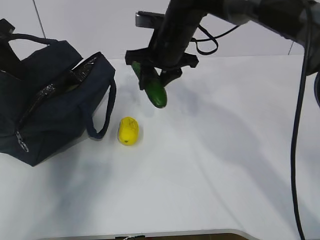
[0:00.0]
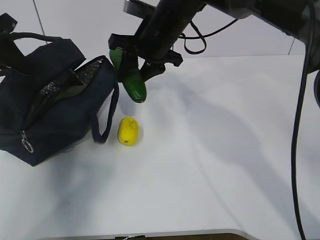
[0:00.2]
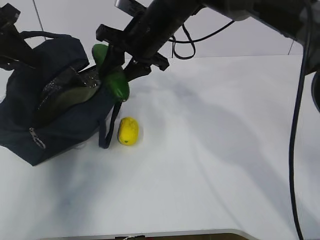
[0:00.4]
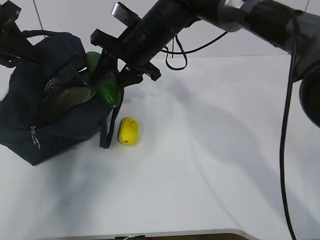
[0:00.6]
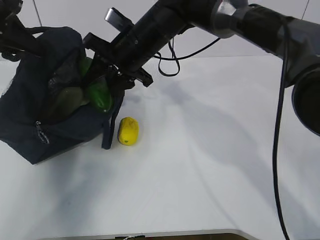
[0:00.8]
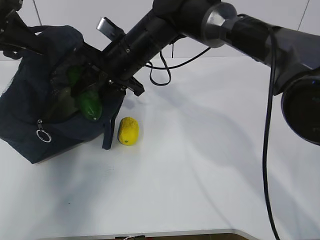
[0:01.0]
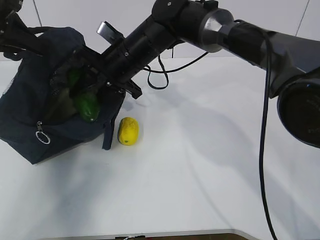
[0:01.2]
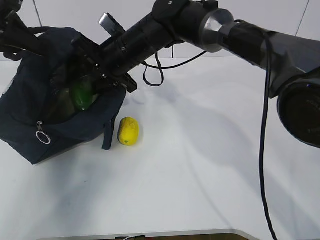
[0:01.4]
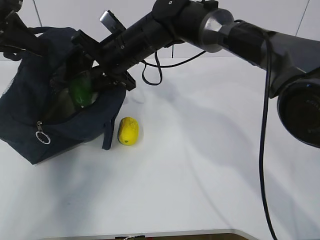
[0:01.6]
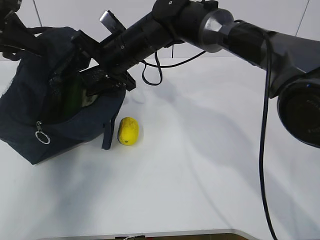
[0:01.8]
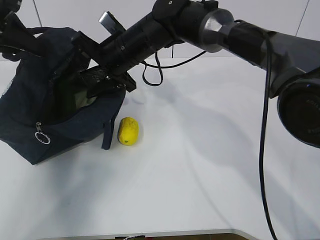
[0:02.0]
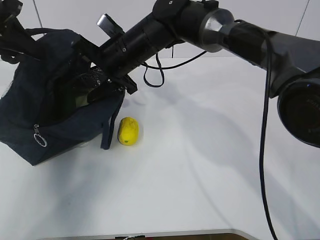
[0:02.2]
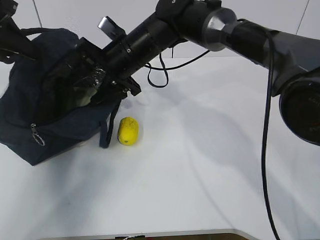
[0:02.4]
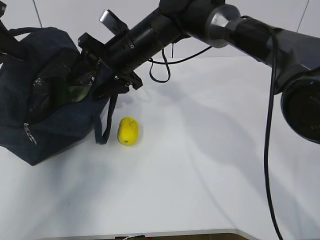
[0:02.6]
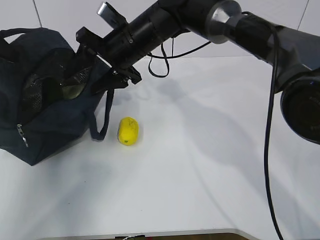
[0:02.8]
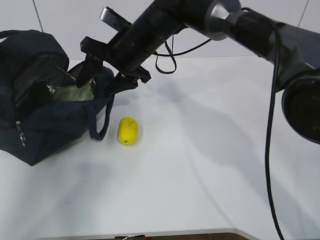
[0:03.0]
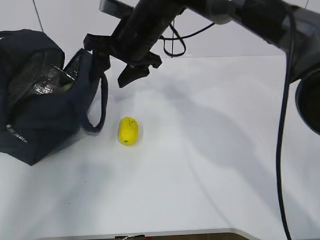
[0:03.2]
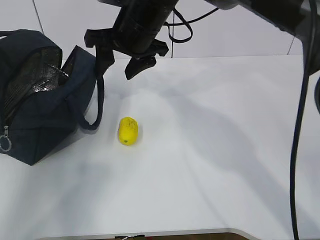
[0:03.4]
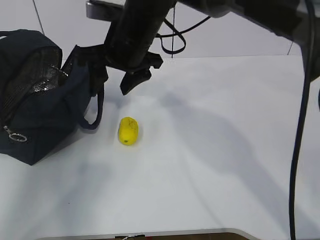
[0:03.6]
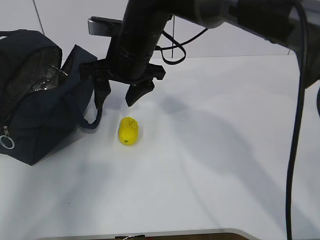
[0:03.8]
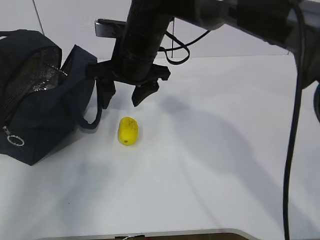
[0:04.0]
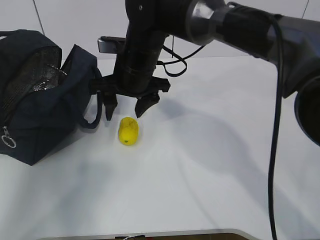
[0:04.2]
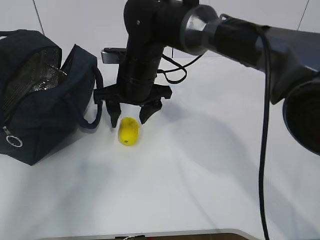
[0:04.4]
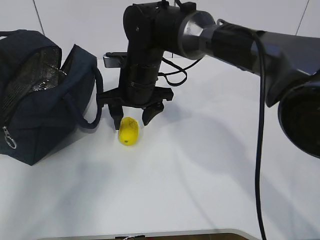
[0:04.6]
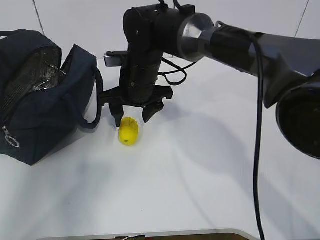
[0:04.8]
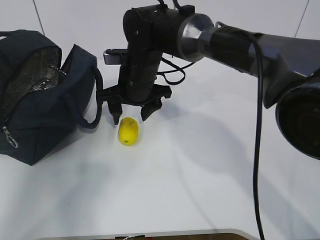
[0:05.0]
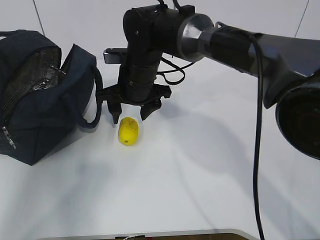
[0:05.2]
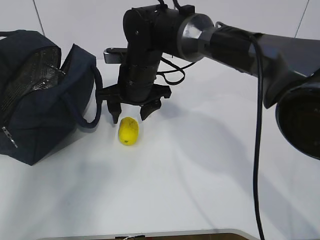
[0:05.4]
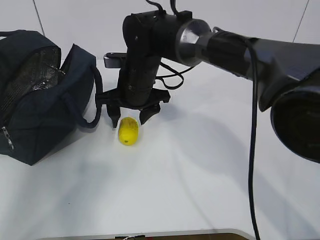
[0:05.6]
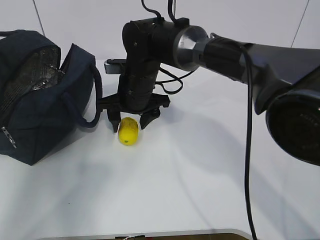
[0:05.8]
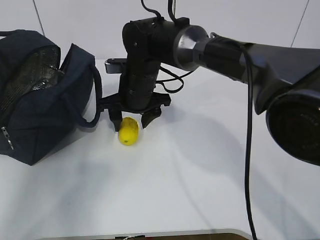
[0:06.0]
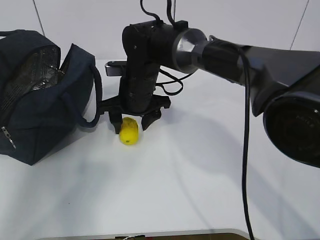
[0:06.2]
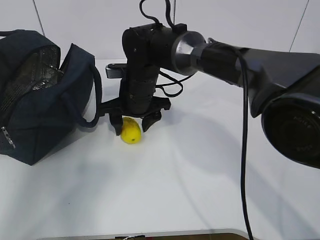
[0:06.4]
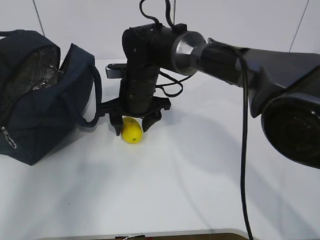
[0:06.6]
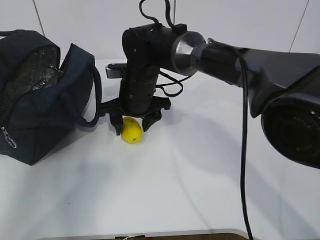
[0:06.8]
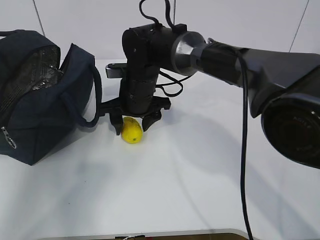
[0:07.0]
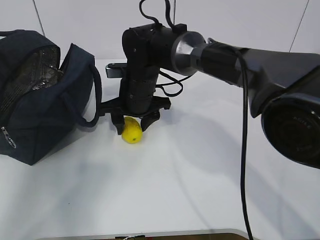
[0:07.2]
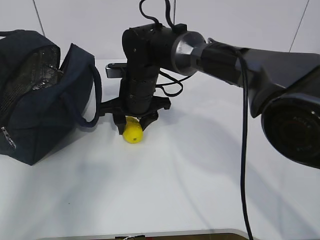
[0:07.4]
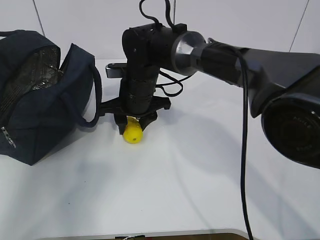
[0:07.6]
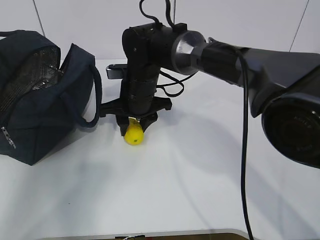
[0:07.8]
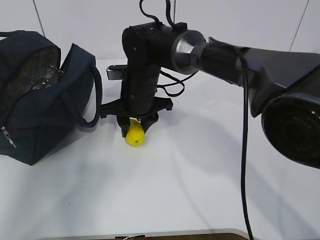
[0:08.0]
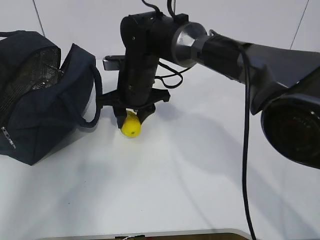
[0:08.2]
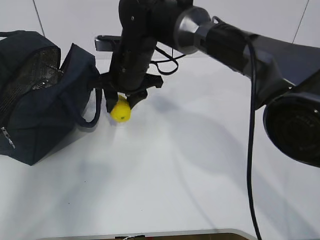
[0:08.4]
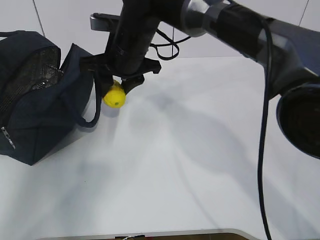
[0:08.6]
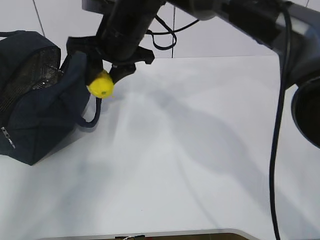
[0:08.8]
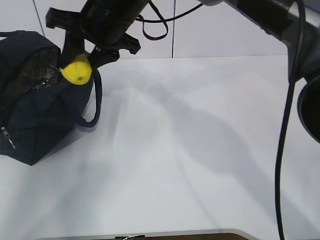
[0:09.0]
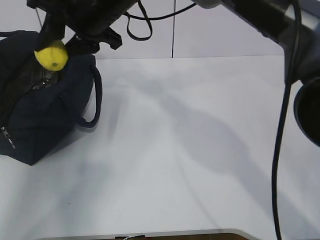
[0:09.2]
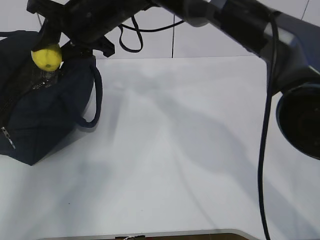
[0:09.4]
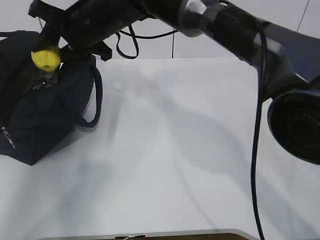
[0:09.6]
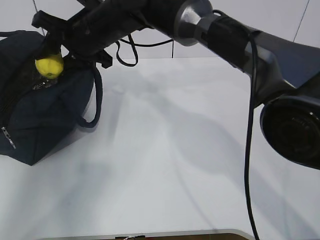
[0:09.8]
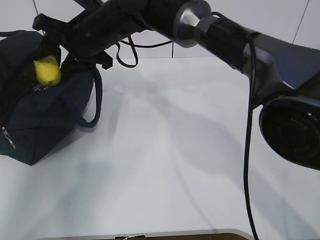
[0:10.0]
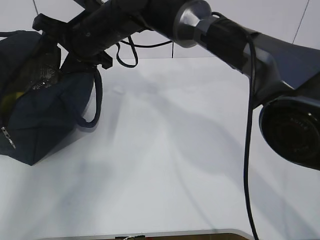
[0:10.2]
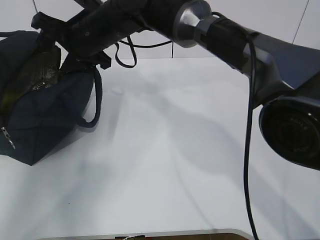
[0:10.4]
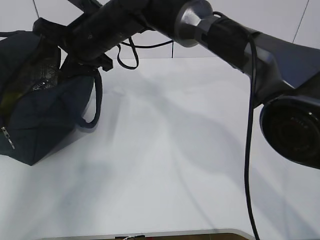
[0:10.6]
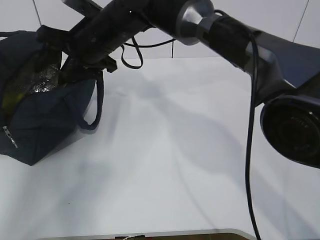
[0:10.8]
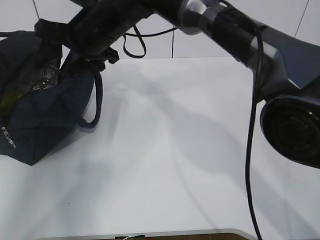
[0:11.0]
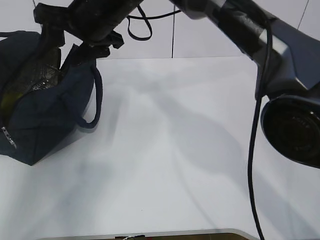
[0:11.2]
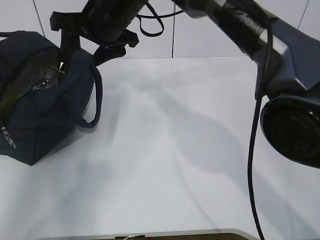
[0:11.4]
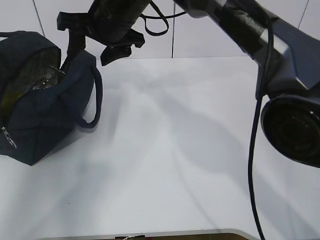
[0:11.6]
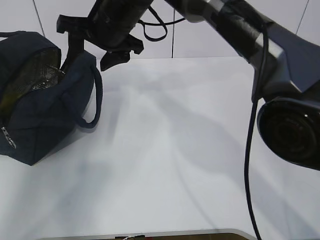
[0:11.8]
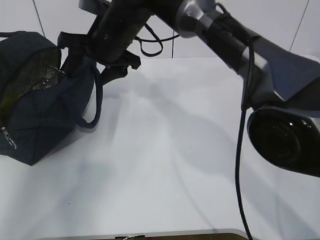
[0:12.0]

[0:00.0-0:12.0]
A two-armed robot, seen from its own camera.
Step, 0:01.6 to 0:03.6: Secure the lunch bag with your left hand.
Step, 0:03.8 to 0:06.6: Grab the lunch bag with your right hand.
Step, 0:06.8 to 0:10.0: Move the lunch bag to the right.
0:00.0 to 0:01.6: The right gripper is displaced to the left by roughly 10 cm.
0:01.6 to 0:03.0: The left gripper is displaced to the left by some 5 cm.
0:04.4 to 0:06.0: The grippers make only small movements.
0:06.0 to 0:07.6: Both grippers stay about where they are.
0:07.6 to 0:09.0: The right gripper goes about 15 cm upward.
0:09.0 to 0:10.4: The right gripper shifts by about 5 cm, and opens up.

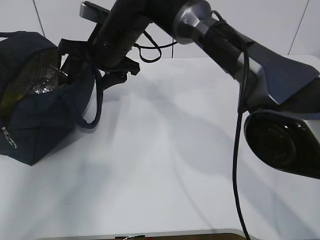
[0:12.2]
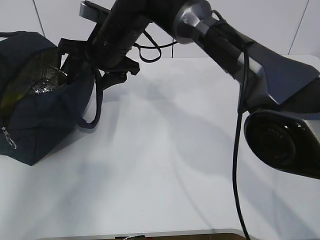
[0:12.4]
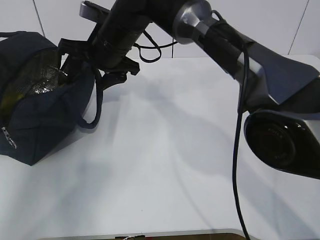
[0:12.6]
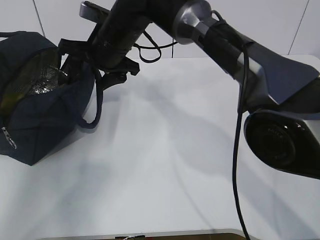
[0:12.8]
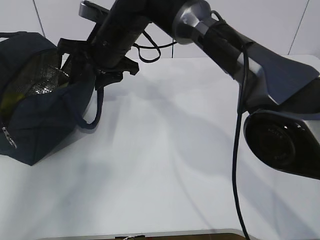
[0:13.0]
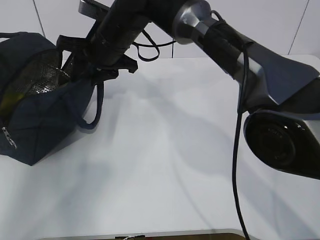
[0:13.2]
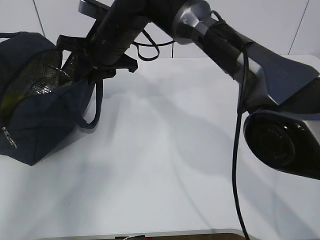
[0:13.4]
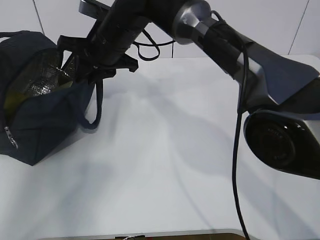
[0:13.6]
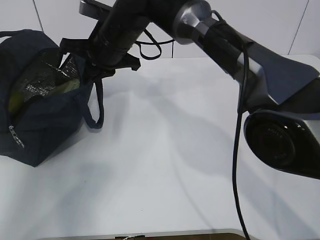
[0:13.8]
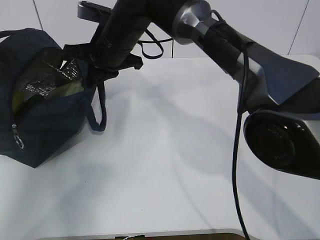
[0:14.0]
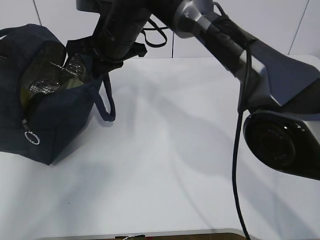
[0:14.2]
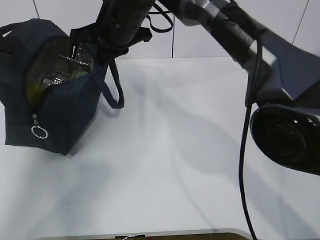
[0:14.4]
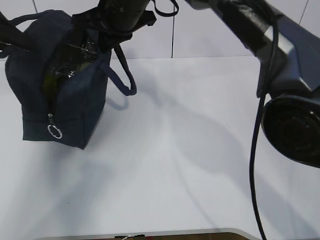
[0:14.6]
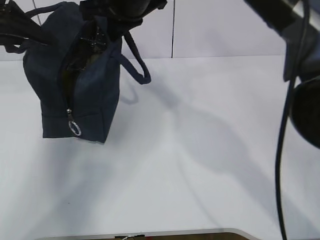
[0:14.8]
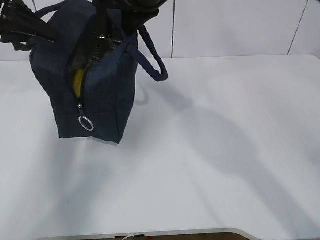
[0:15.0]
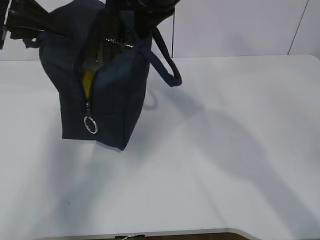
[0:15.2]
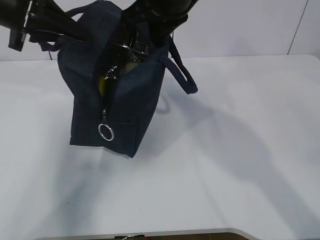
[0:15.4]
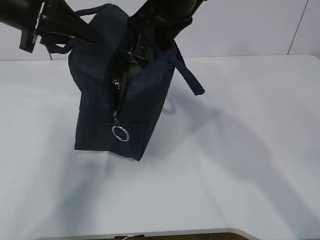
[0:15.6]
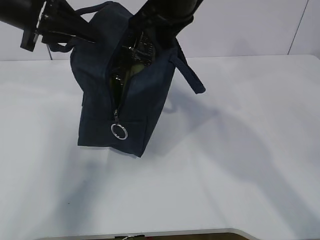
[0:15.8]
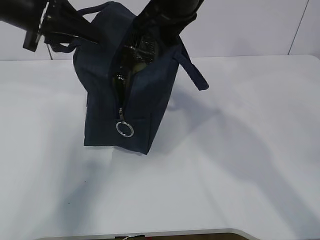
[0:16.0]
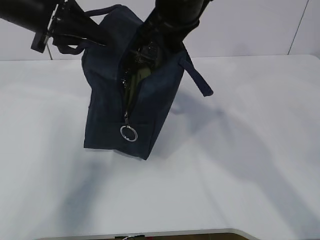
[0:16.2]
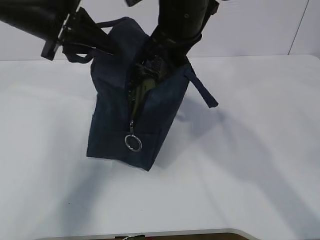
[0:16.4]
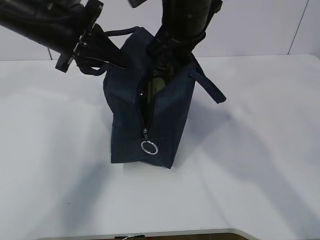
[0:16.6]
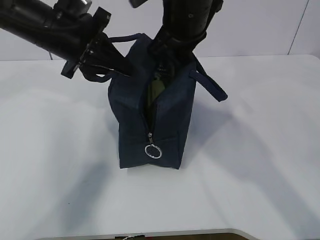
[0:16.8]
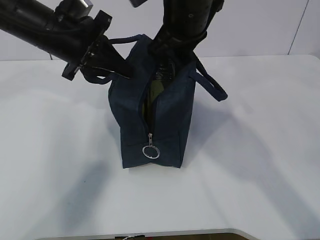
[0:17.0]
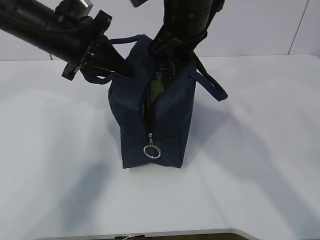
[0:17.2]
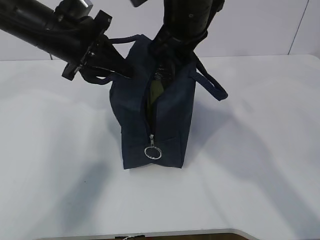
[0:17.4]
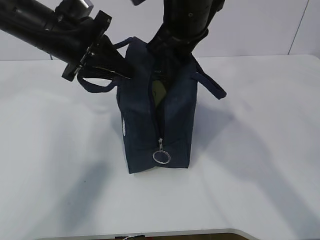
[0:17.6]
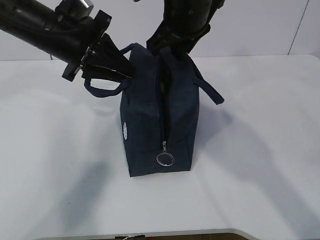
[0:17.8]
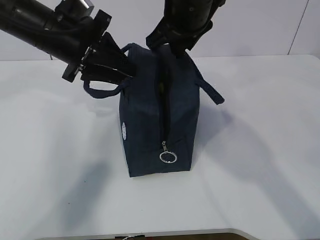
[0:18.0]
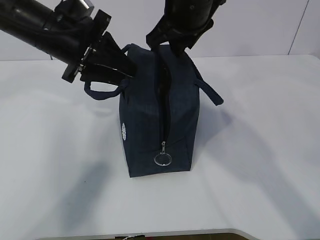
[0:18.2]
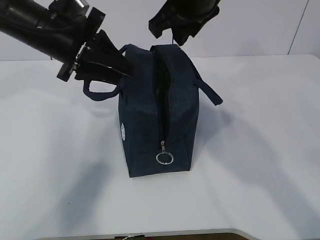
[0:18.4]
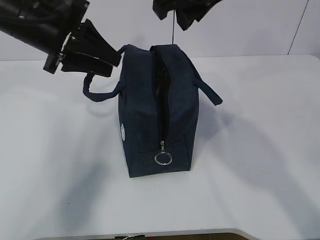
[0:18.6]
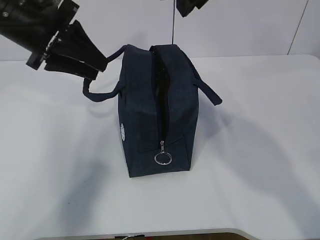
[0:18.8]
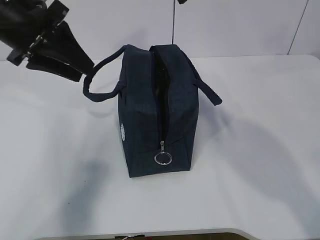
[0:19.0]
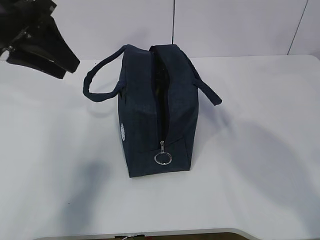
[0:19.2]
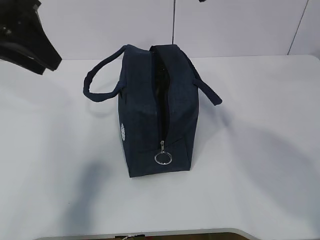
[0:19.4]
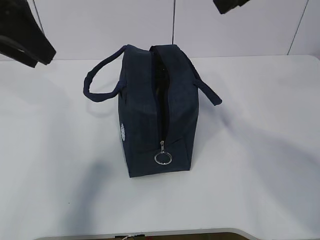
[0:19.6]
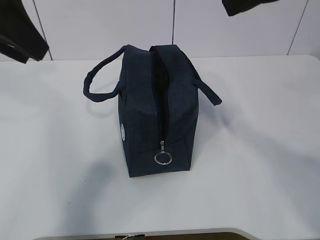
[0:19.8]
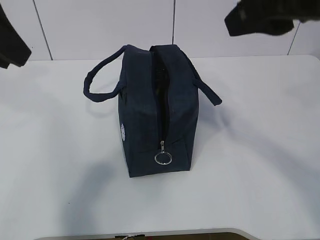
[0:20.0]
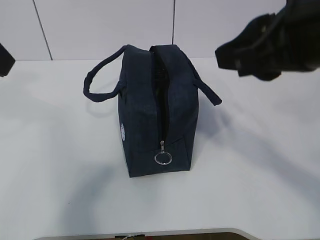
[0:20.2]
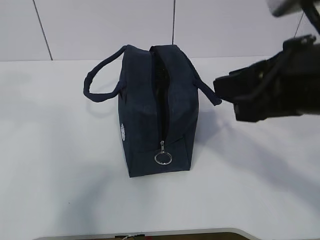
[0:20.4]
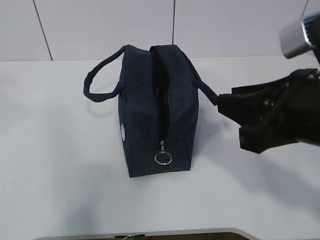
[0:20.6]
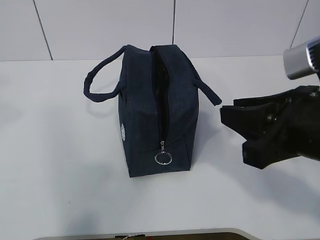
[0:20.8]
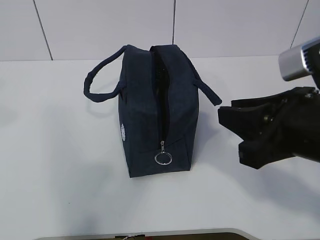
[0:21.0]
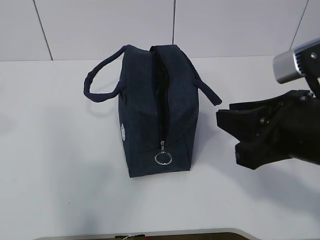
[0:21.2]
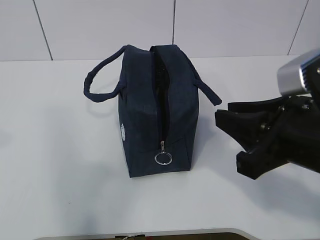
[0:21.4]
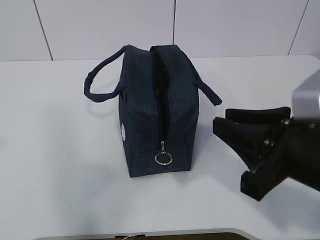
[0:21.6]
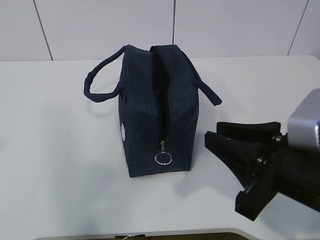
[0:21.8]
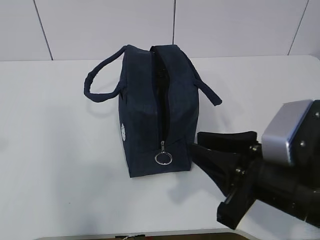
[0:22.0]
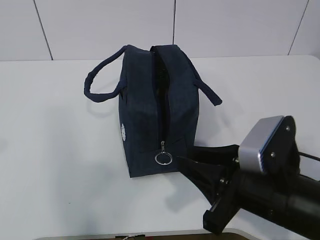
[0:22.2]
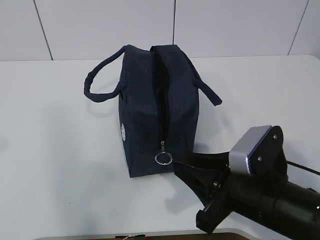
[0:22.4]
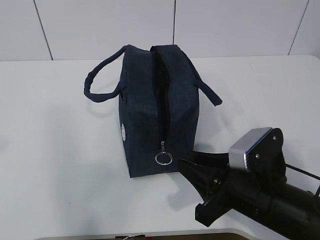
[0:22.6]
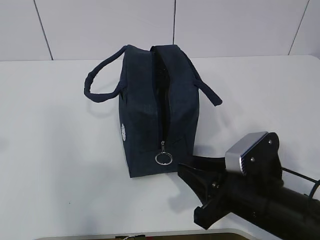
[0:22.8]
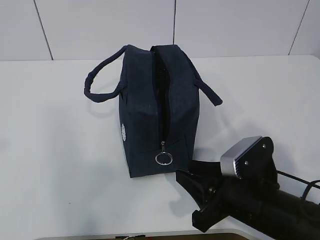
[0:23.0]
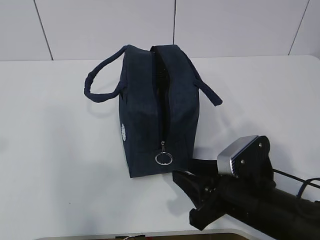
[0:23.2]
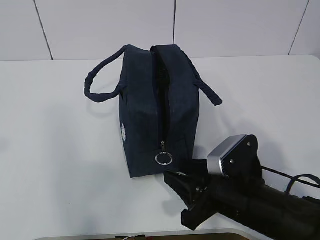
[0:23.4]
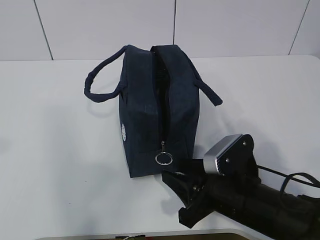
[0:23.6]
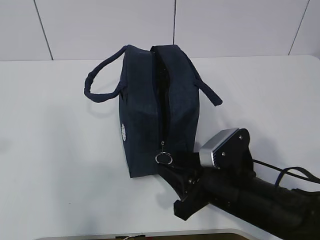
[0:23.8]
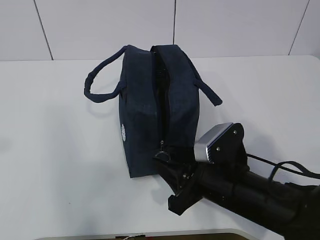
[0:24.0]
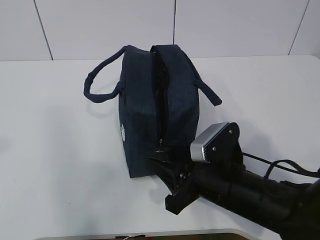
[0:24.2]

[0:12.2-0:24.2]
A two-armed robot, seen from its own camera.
Step, 0:12.2 to 0:23.8: Grab the lunch bag with your left hand.
0:12.2 to 0:13.8: The right gripper closes up.
0:13.8 to 0:15.2: The right gripper moves upward, to the right and backward, about 15 cm. Meanwhile the left gripper moves to the right, roughly 10 cm.
0:15.2 to 0:16.6: The left gripper travels to the right by approximately 10 cm, while the right gripper changes place by approximately 5 cm.
0:16.6 to 0:18.2: The left gripper opens its fingers. The right gripper opens.
0:18.2 to 0:19.8: The left gripper travels upward, backward and to the left by approximately 15 cm. The right gripper shifts approximately 20 cm backward, upward and to the right.
0:19.8 to 0:21.2: The right gripper is displaced downward by some 15 cm; the left gripper is displaced backward and to the left by some 15 cm.
0:21.2 to 0:22.6: The right gripper goes approximately 15 cm downward.
0:22.6 to 0:24.2: The right gripper ends up approximately 5 cm from where it was.
